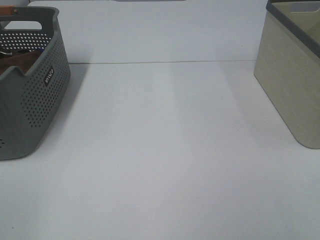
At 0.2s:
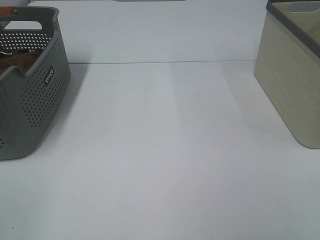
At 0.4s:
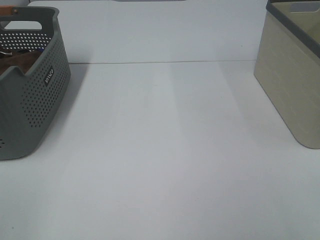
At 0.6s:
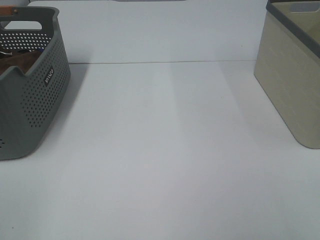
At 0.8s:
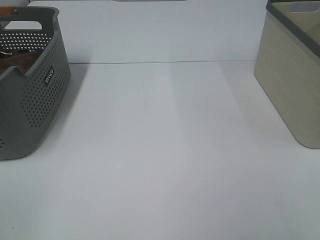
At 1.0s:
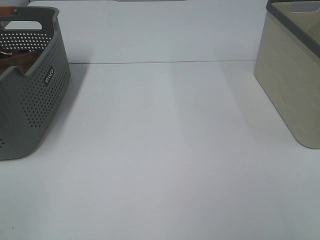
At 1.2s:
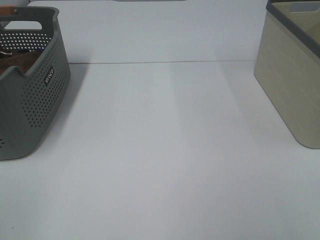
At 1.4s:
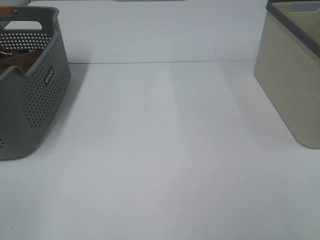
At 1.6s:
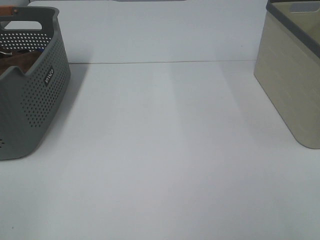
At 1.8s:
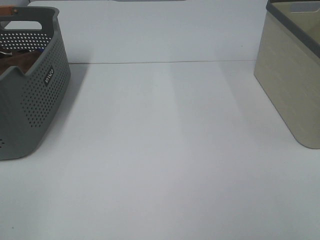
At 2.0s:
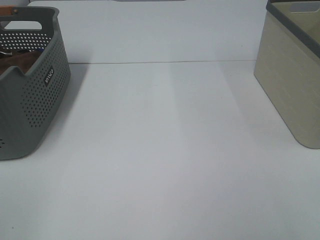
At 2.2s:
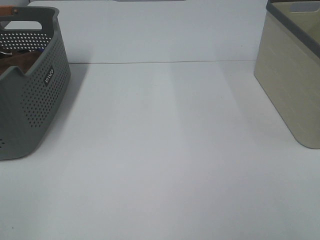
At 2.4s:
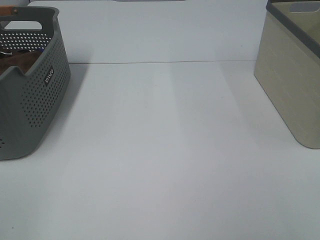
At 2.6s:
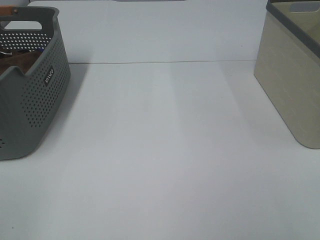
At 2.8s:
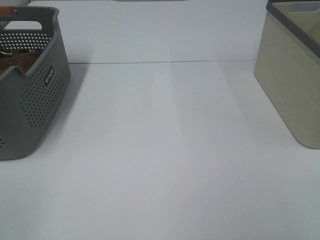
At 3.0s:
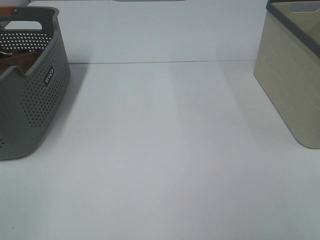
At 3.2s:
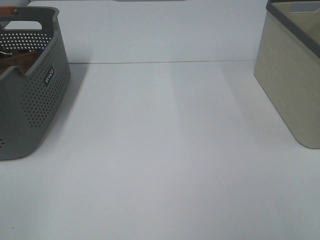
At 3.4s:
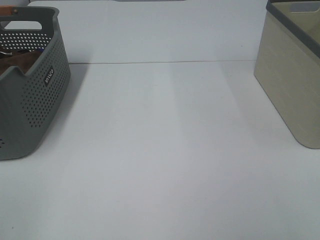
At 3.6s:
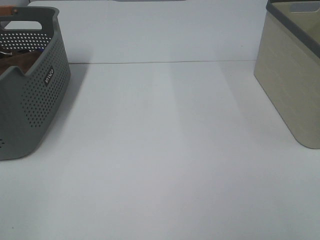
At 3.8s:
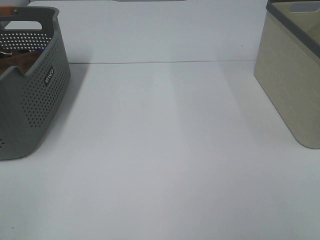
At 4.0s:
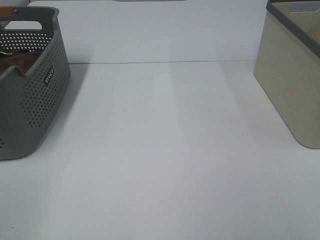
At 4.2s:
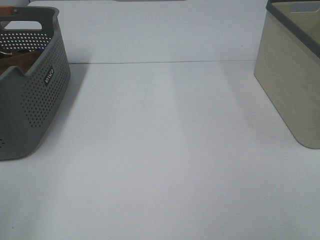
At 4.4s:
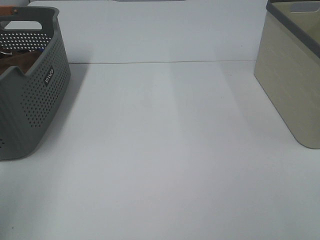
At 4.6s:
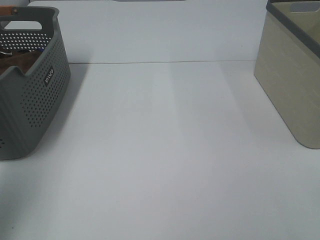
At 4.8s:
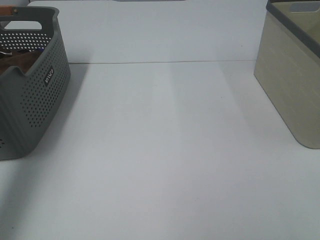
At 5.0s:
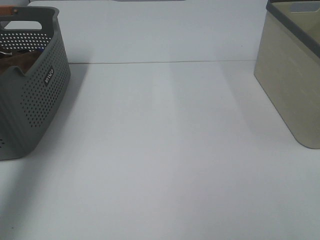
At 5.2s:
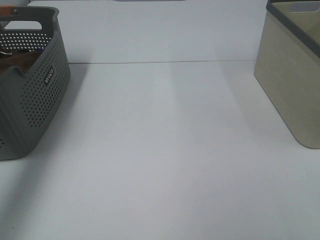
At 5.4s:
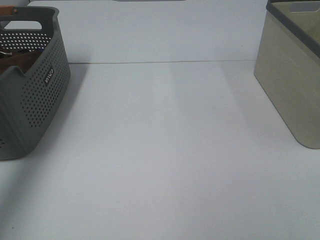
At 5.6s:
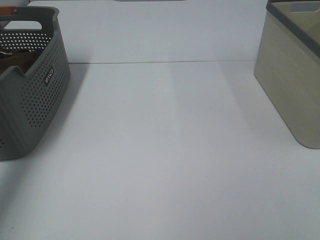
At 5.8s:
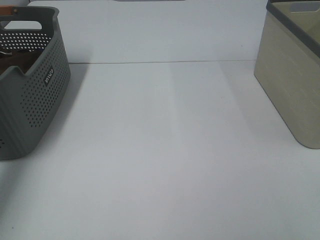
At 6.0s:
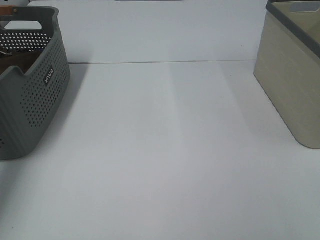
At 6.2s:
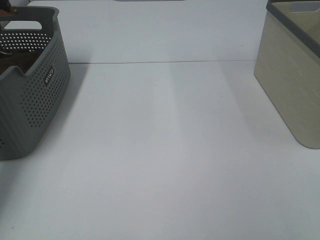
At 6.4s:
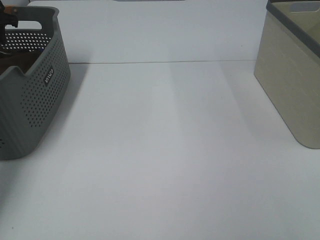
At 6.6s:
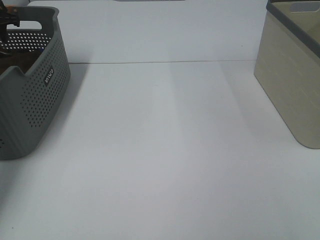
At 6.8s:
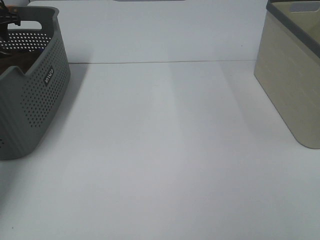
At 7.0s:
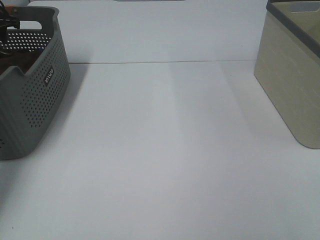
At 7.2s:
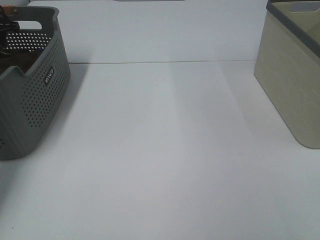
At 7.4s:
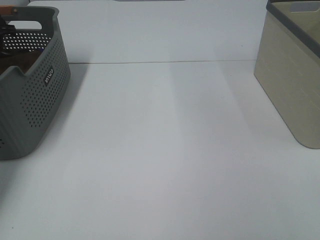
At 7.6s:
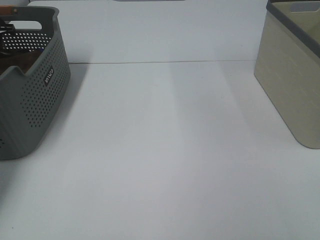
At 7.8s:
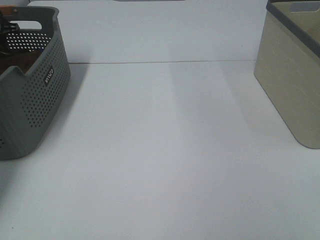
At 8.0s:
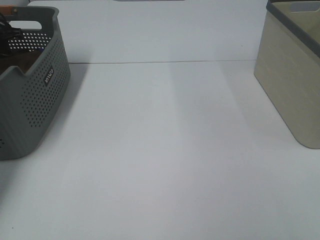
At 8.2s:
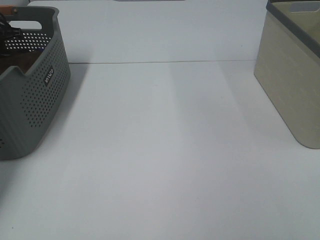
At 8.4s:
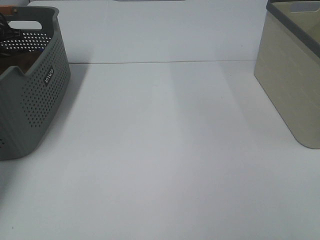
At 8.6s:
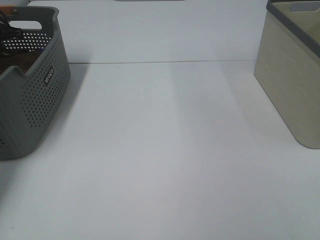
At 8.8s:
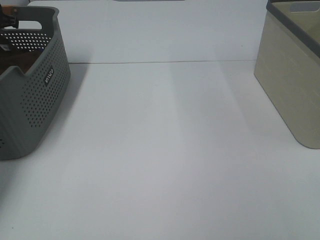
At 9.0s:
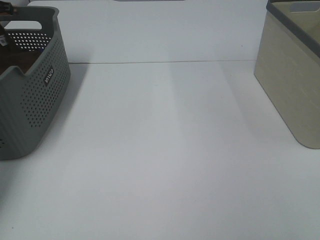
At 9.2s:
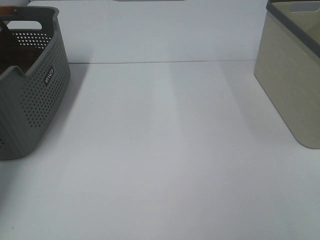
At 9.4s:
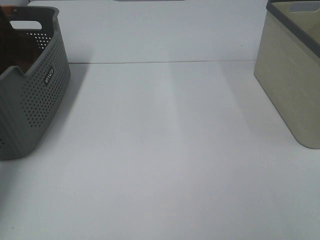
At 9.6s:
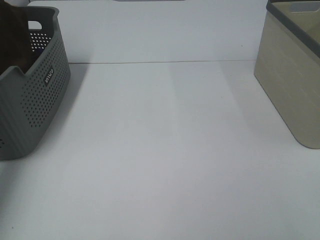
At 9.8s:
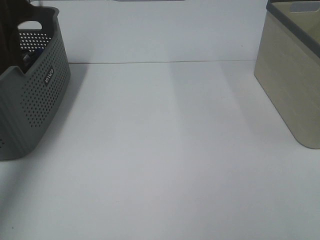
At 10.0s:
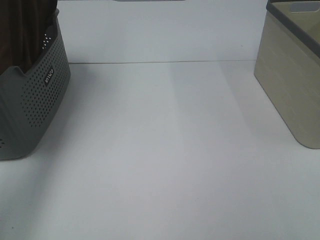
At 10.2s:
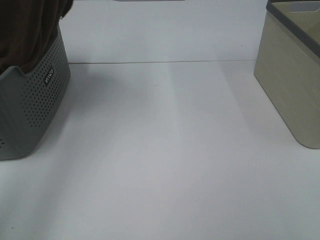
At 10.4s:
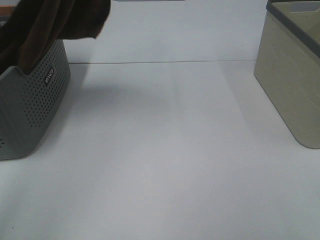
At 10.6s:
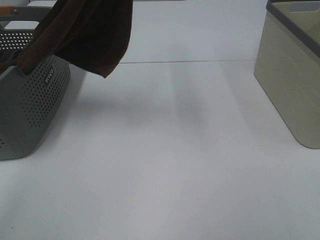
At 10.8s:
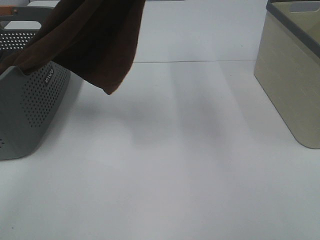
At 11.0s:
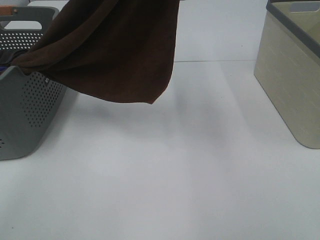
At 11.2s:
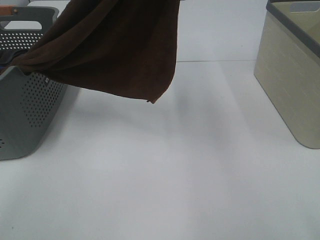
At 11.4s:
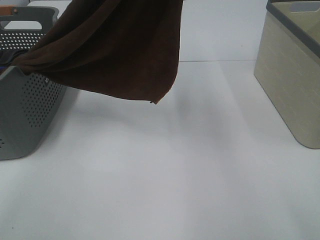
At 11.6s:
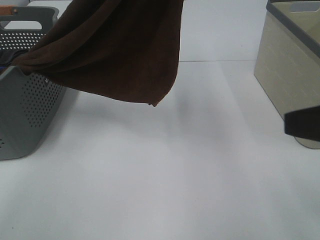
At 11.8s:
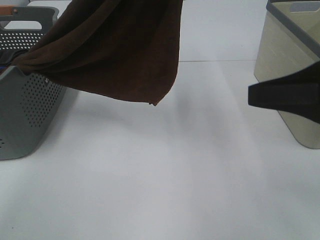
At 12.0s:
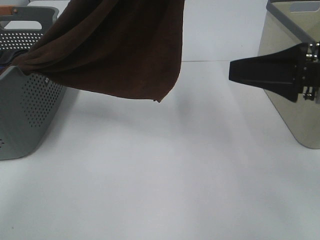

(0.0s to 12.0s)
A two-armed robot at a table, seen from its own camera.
Task of the whole recording: Remove the towel and place it.
0.0s - 3.0s: Neither gripper changes place.
3.0s - 4.4s: The left gripper goes approximately 10 cm forward.
4.4s - 6.0s: The left gripper moves forward, some 40 cm.
9.0s - 10.4s: The left gripper goes about 40 cm to the right, upward and backward.
10.4s - 12.0s: The right gripper travels forward by approximately 20 cm. The left gripper moves to the right and backward, some 10 cm.

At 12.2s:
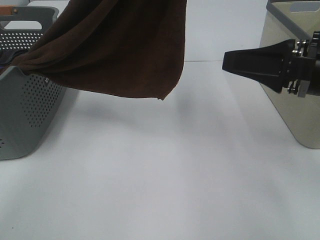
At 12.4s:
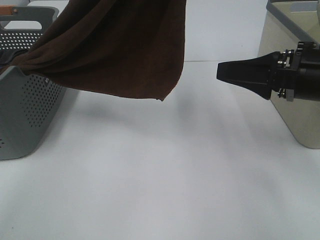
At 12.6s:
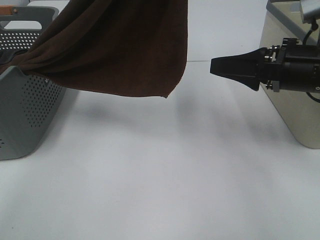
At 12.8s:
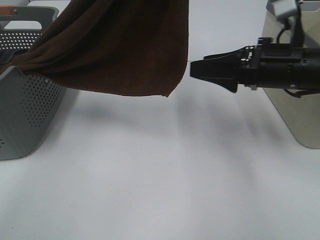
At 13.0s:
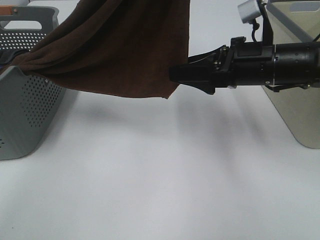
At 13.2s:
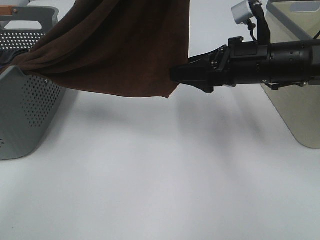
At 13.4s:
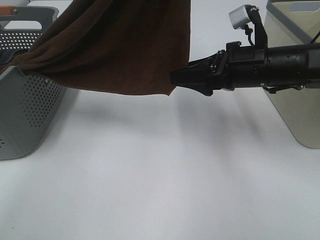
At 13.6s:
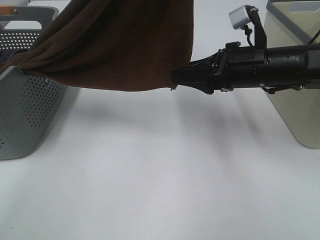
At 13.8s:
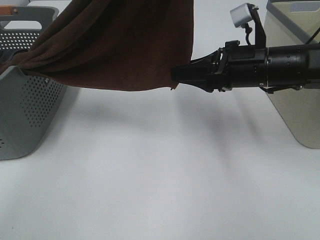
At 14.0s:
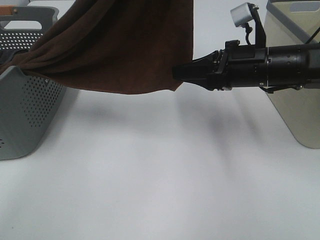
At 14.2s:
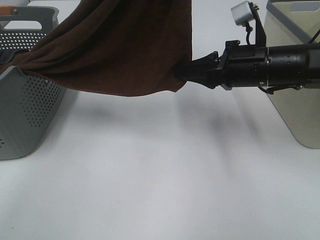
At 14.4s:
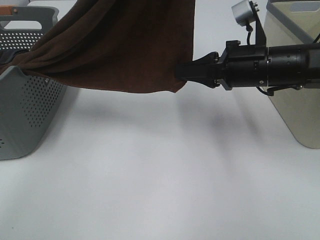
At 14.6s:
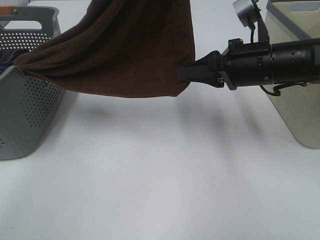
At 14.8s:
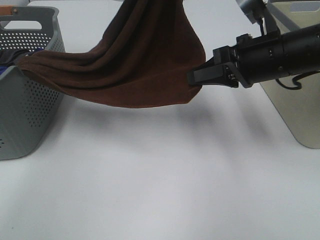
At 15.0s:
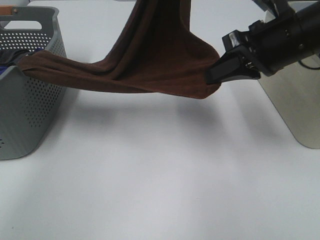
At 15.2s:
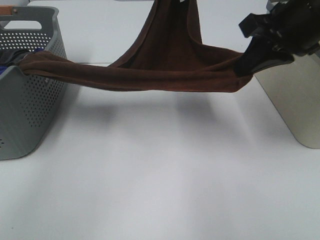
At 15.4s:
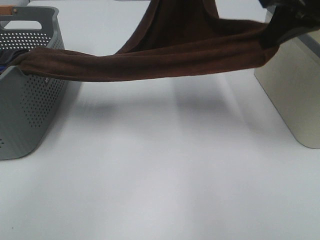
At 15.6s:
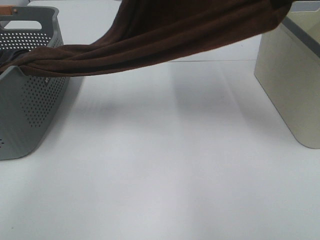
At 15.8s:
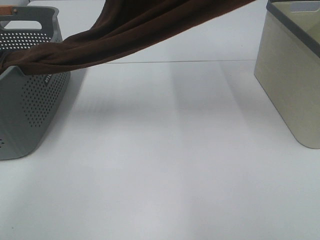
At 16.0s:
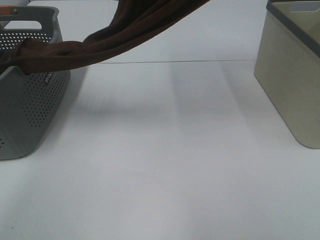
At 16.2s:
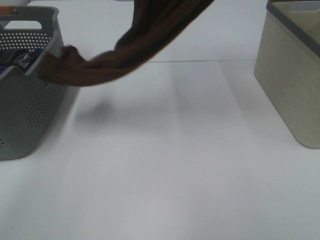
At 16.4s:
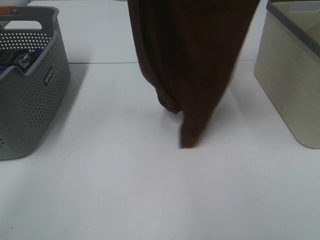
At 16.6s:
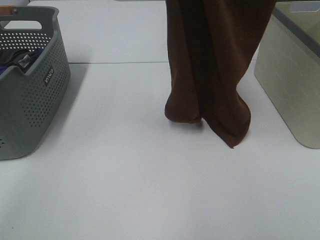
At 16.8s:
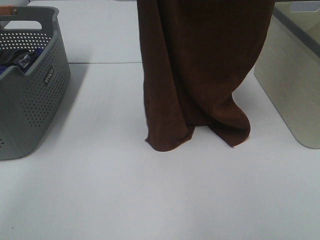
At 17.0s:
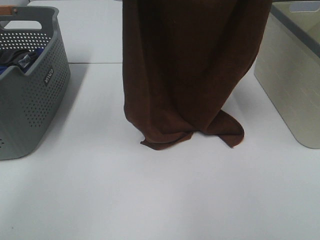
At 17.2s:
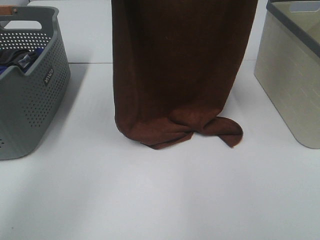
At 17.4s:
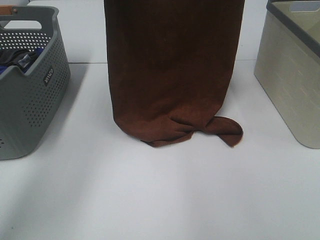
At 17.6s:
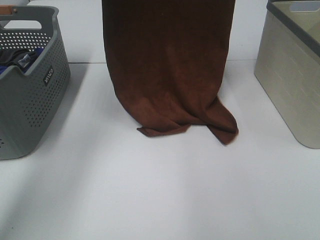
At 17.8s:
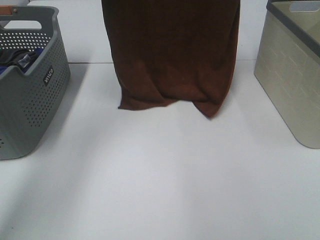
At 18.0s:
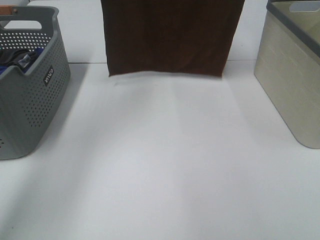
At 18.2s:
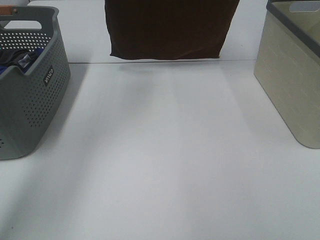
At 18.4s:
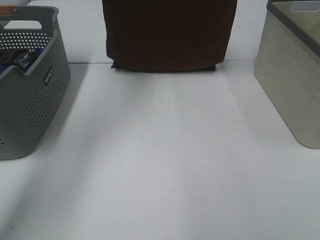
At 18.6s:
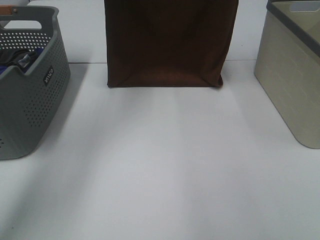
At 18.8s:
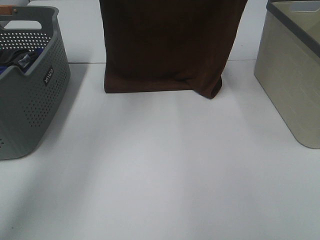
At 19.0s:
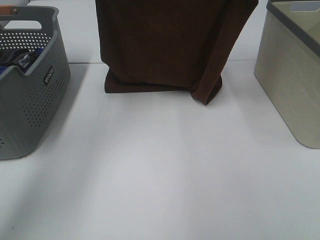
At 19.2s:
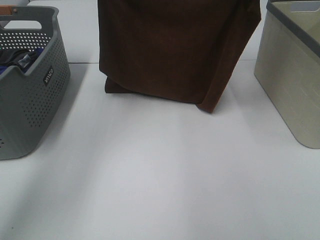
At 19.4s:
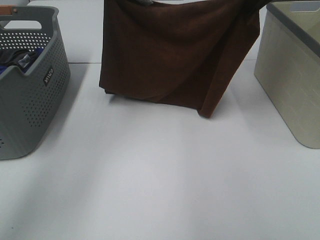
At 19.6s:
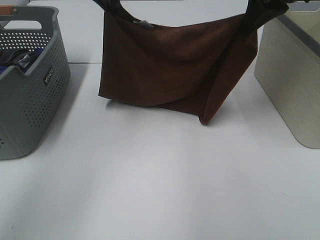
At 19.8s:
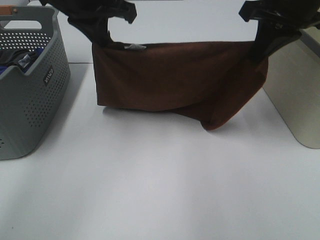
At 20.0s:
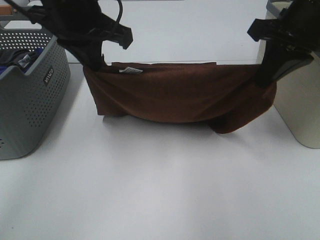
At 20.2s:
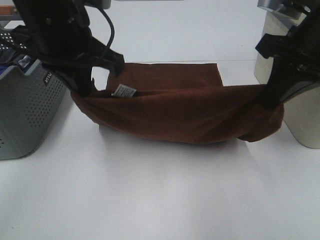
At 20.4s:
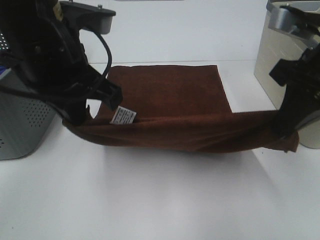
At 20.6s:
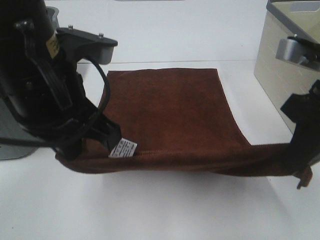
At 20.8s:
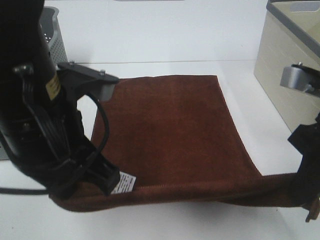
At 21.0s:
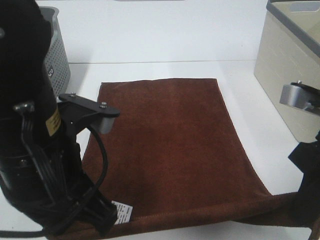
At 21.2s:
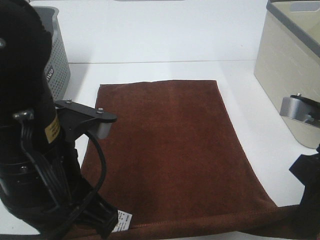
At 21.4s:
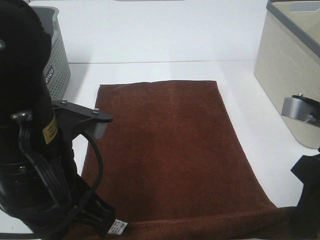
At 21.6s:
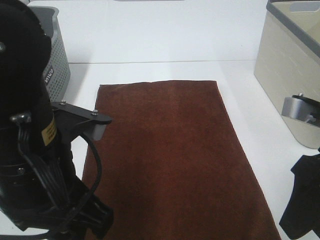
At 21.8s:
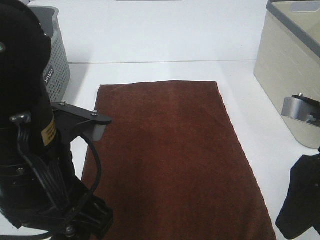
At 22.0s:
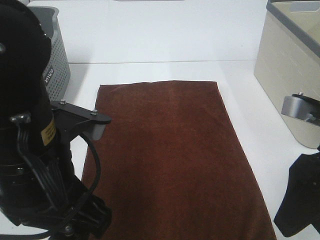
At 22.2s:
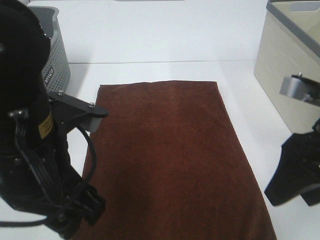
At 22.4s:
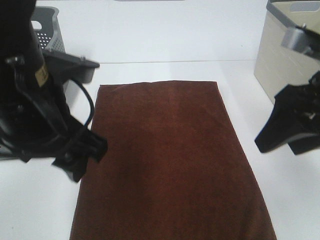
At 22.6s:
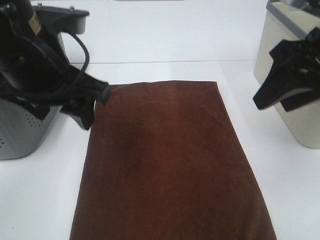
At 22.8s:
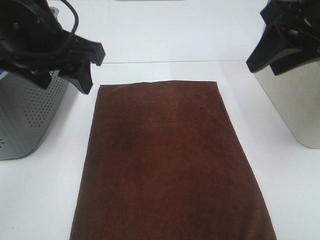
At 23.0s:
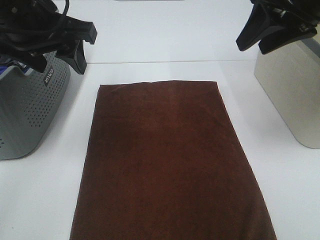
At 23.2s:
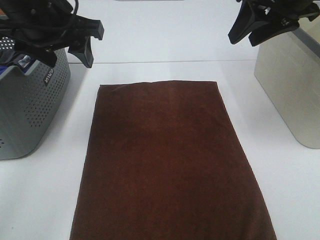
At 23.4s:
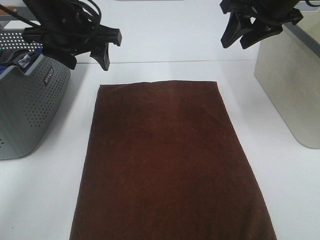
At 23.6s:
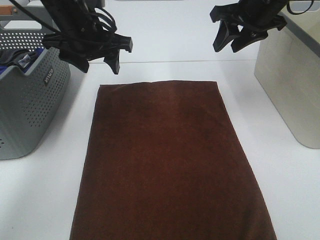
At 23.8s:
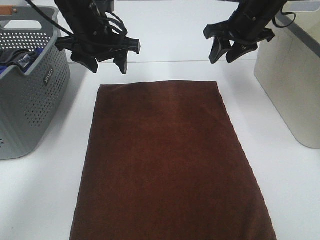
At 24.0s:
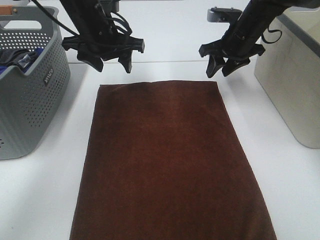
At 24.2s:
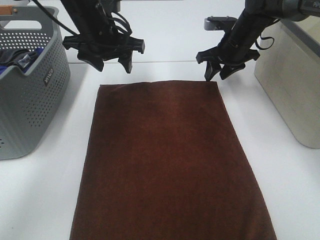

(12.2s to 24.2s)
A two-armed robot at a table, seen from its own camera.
Task of the whole recording: Remove the towel and place it.
Step, 14.0s - 17.6s: Left hand: spread the brown towel flat on the table.
Step, 14.0s - 17.6s: Right hand: spread the brown towel flat on the table.
12.2s - 13.8s: The right gripper travels forward and to the left by some 10 cm, and closes.
13.8s - 15.2s: The right gripper is displaced upward by about 10 cm, and closes, while the left gripper travels downward and forward by some 15 cm.
15.2s - 16.6s: Both grippers move upward, some 20 cm.
16.6s - 18.2s: The left gripper moves forward and to the left, about 15 cm. The right gripper goes roughly 10 cm forward.
18.2s - 19.8s: The right gripper shifts about 25 cm downward, while the left gripper travels downward and backward by approximately 20 cm.
19.8s - 21.2s: The right gripper heads backward and downward, covering approximately 20 cm, while the left gripper heads backward, covering roughly 20 cm.
21.2s - 22.6s: The grippers both shift forward and upward by about 10 cm. The right gripper opens up. The left gripper opens its fingers.
22.6s - 24.2s: The right gripper moves forward and downward, about 30 cm. Meanwhile the left gripper goes some 20 cm forward.
